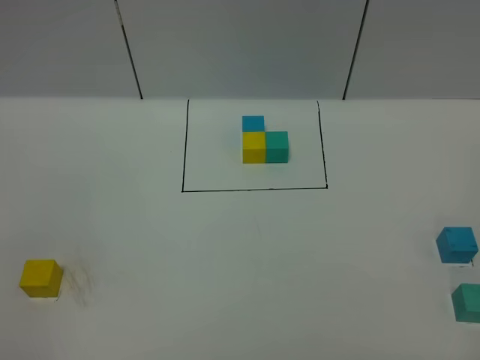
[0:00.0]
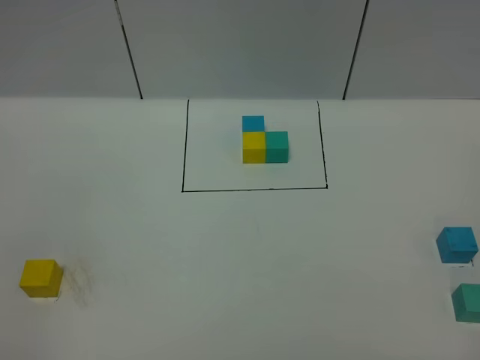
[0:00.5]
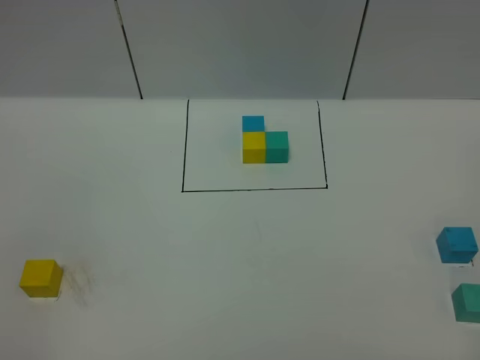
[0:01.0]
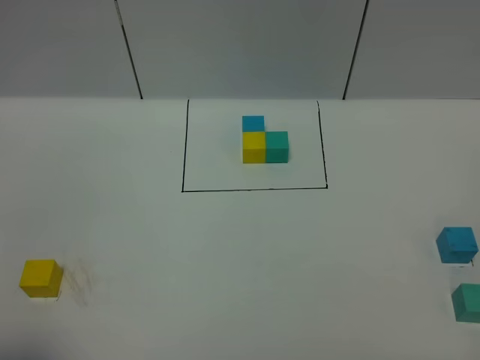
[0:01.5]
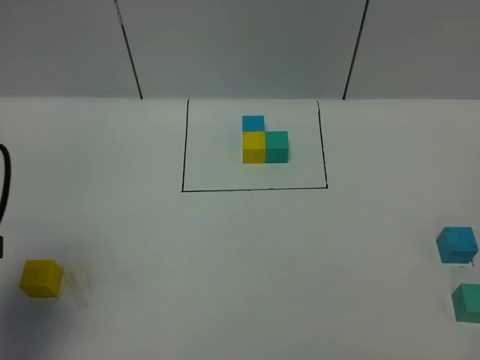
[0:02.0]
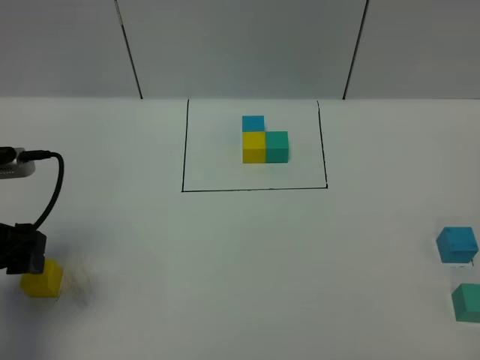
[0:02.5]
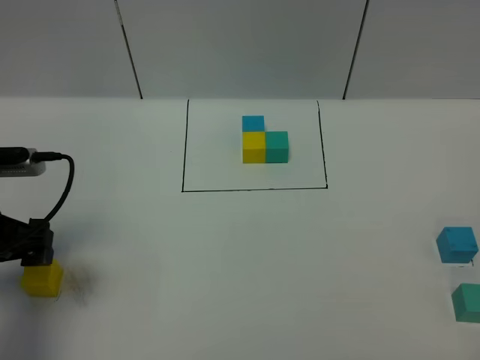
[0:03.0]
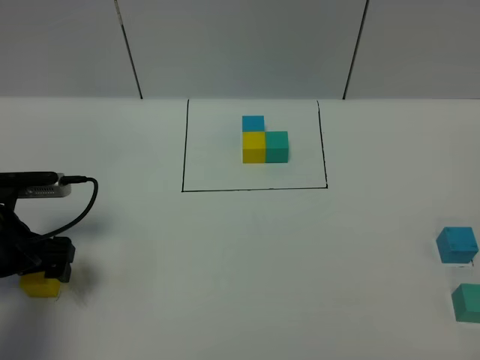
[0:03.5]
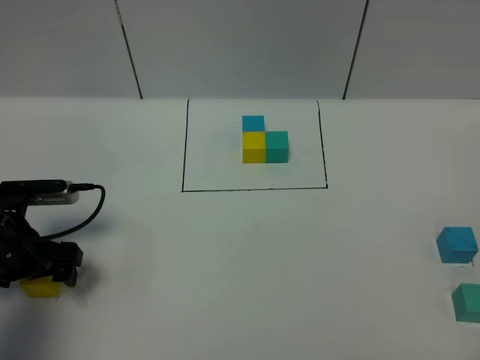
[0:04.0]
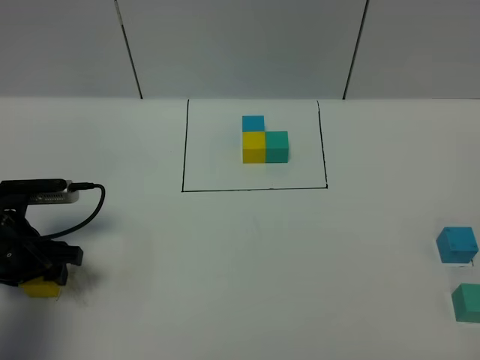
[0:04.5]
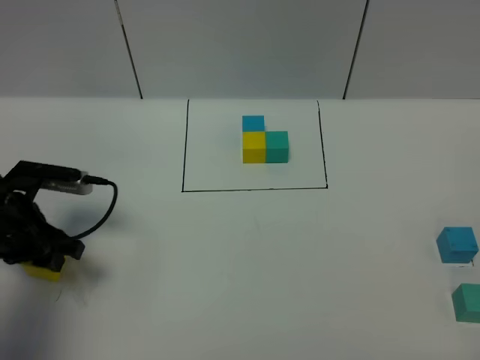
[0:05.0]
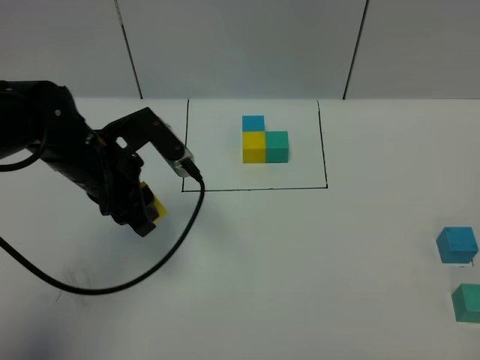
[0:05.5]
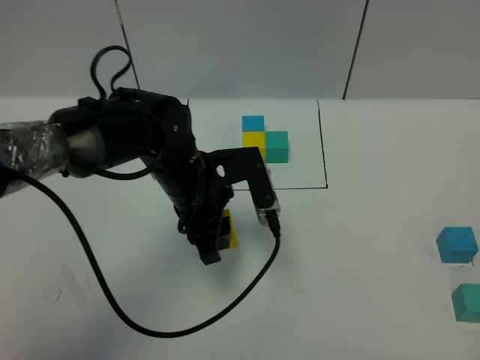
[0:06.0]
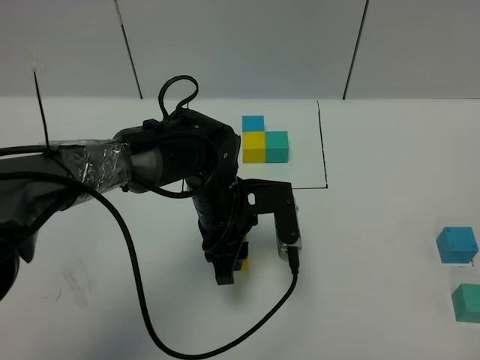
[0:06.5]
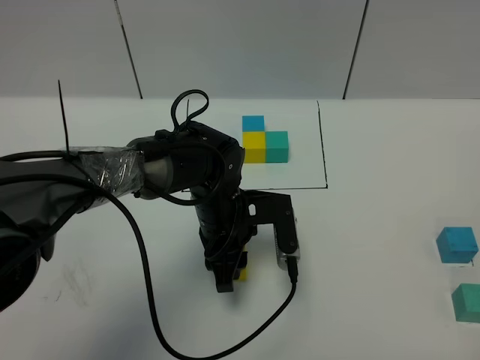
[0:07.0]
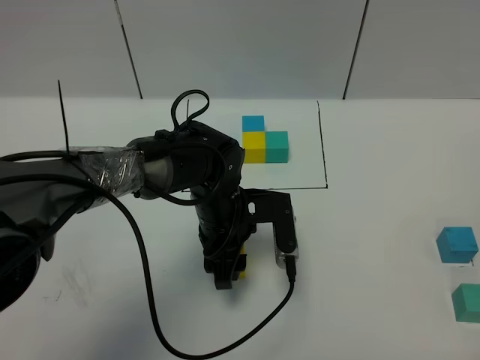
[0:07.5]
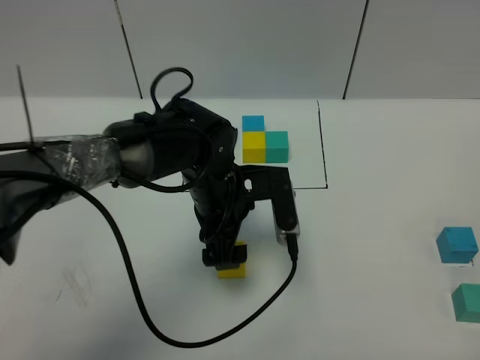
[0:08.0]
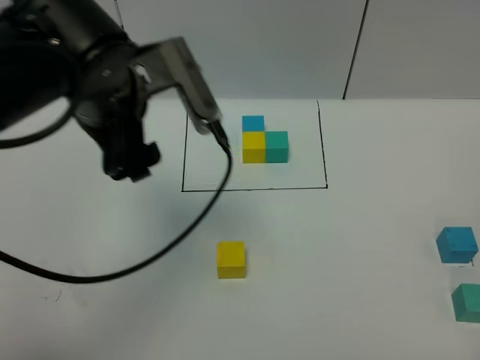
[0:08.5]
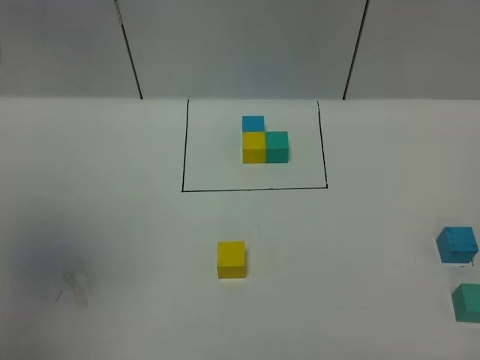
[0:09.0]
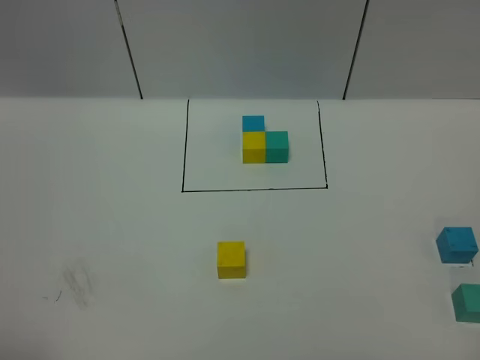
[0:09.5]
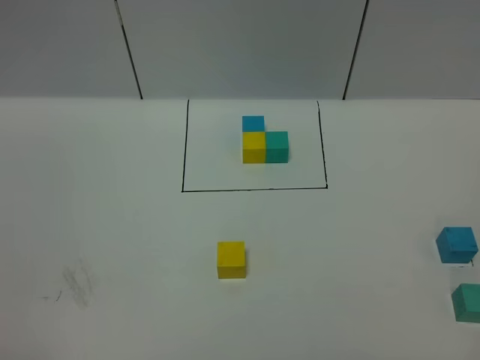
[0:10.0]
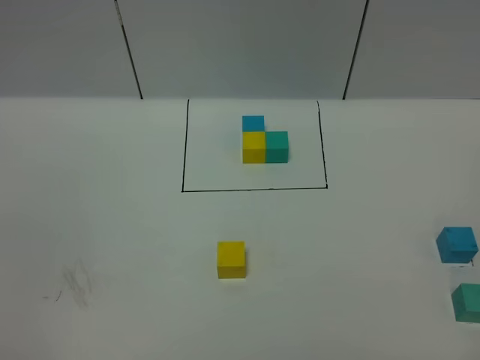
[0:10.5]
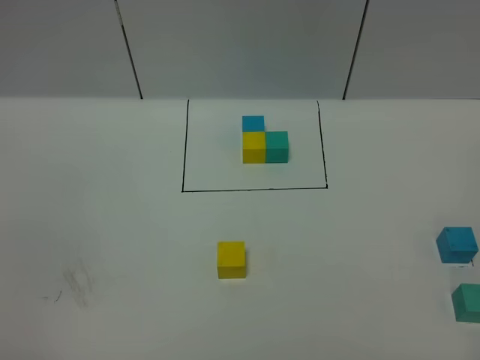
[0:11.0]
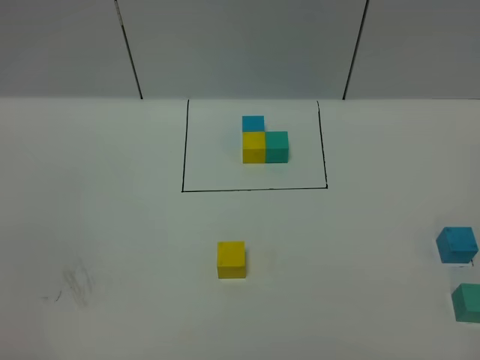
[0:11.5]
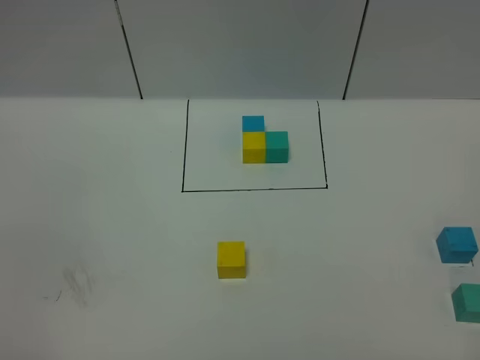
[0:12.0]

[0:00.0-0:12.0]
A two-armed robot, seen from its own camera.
Task of the whole recording: According to the building block template in front, assemble the scattered blocks together.
Step, 0:02.0 to 0:08.0: Put the yellow cube in the center of the table.
0:00.0 to 0:02.0: The left gripper shifts about 20 cm forward.
0:02.0 to 0:04.0: The left gripper travels downward and forward by approximately 20 cm, and opens.
0:04.0 to 0:06.0: The left gripper is displaced to the right by roughly 25 cm, and closes up.
0:06.0 to 0:08.0: The left gripper opens.
0:08.0 to 0:10.0: The left gripper shifts approximately 60 cm backward, to the left and upward.

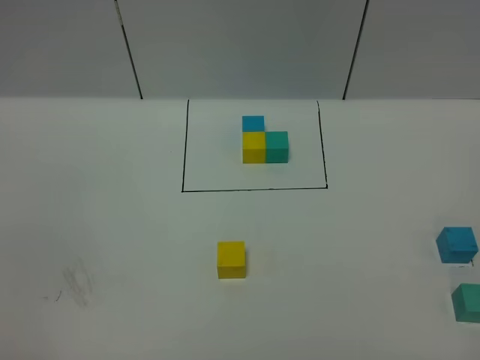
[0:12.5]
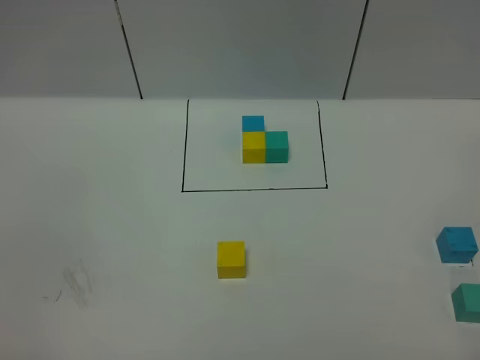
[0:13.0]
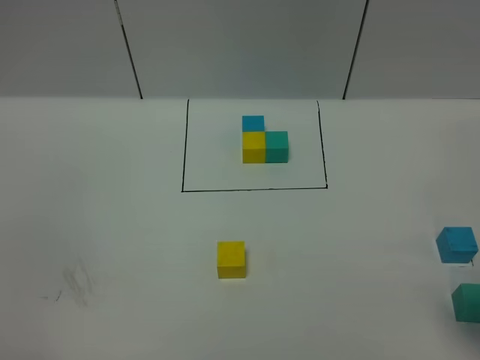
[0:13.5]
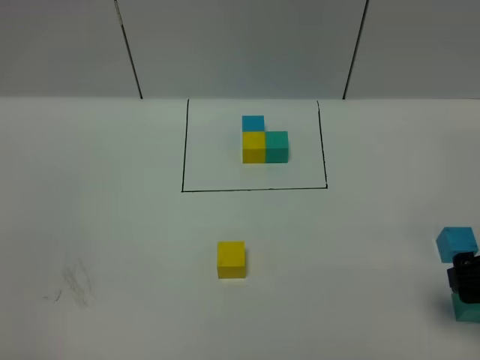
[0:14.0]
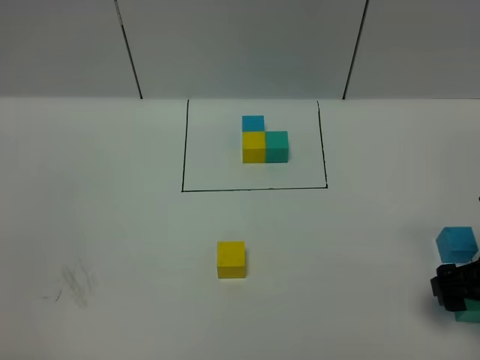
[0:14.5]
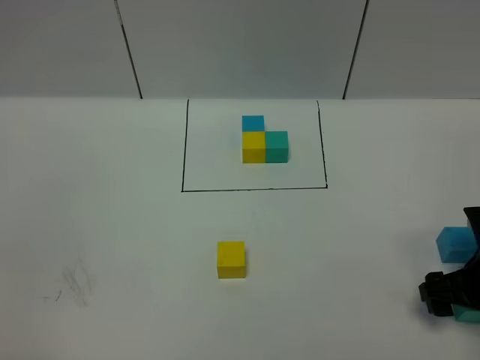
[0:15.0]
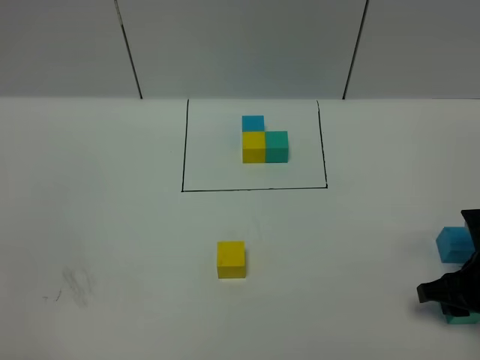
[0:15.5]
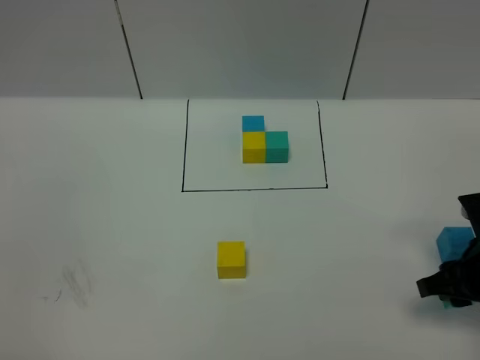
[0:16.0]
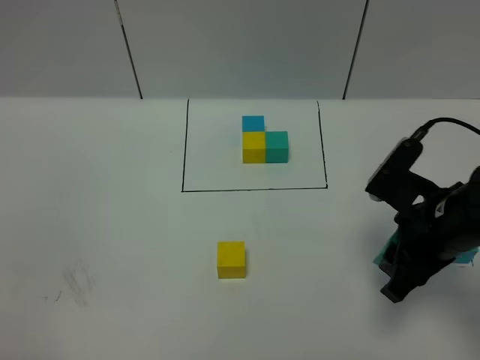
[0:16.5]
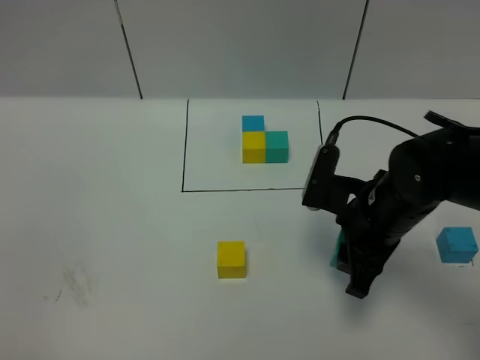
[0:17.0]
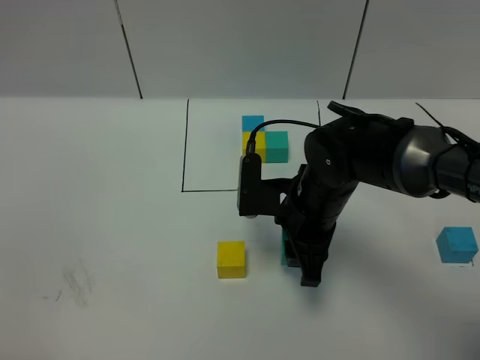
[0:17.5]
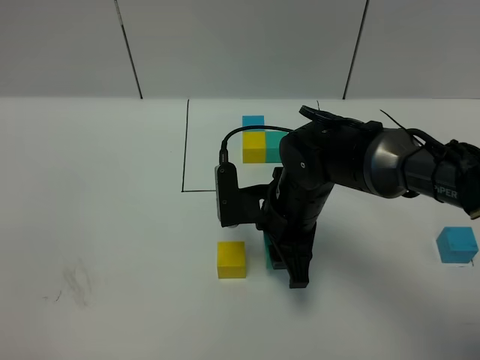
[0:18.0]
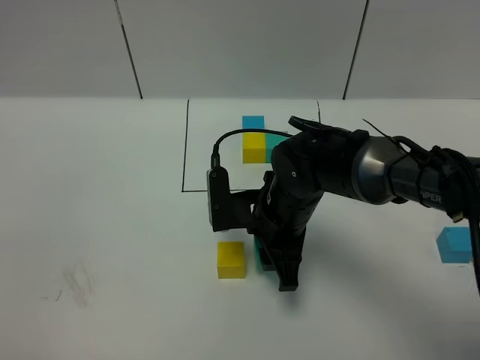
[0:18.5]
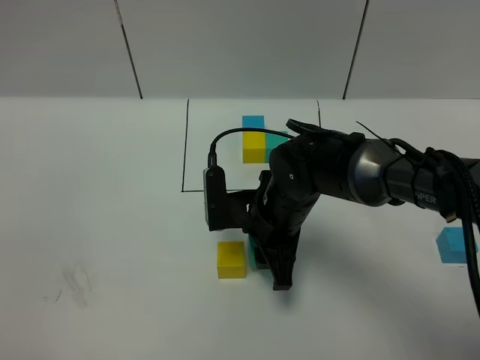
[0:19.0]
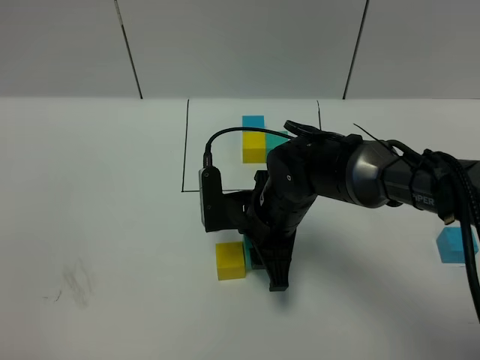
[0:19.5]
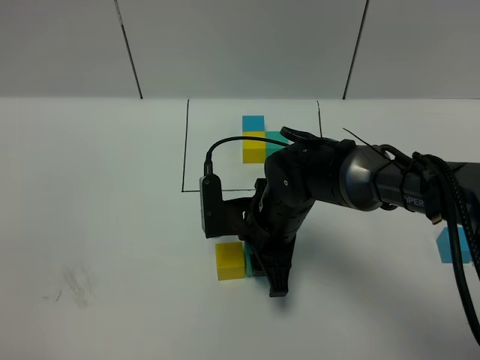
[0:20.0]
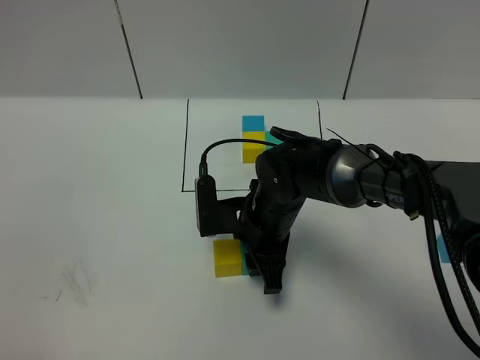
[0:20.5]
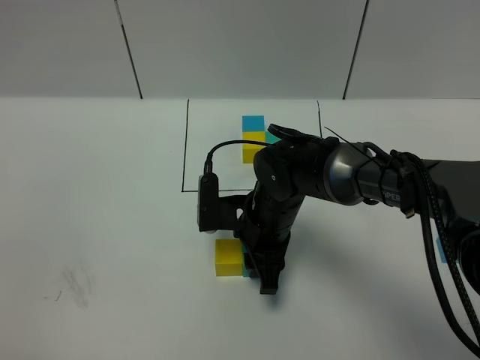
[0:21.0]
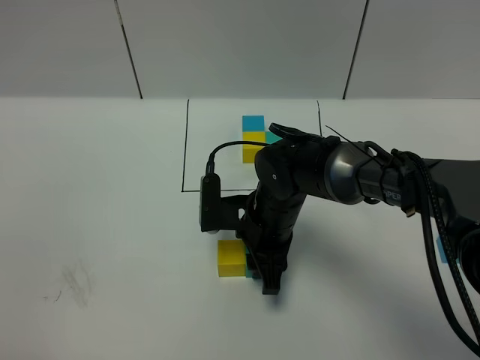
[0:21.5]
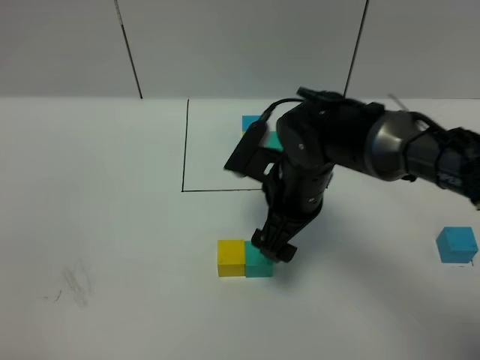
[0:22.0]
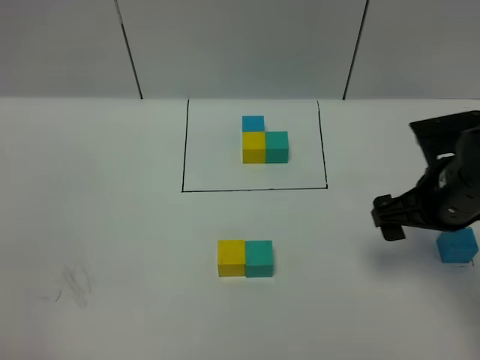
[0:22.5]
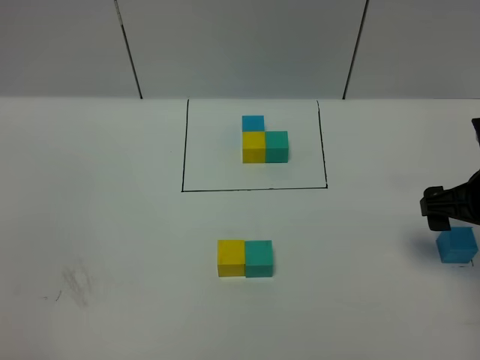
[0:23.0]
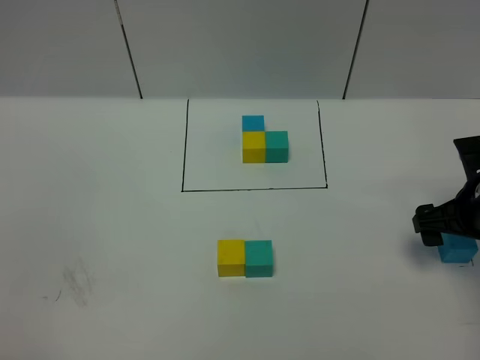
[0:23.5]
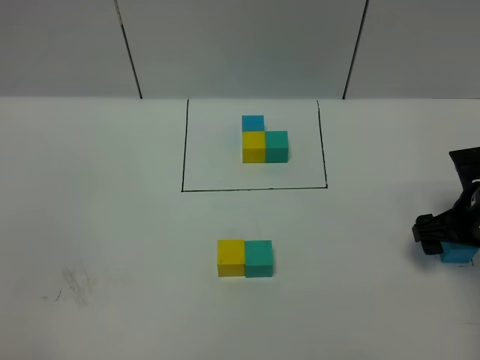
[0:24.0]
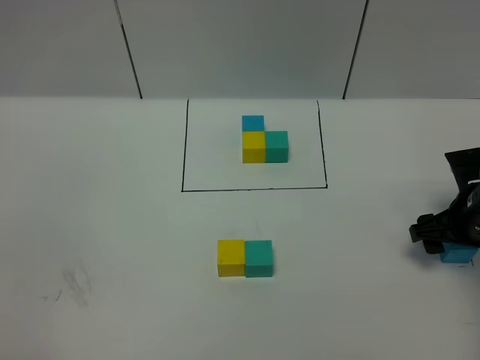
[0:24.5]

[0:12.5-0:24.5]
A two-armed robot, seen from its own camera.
Task of the whole recording: According to the building block template in front, assemble the scattered blocks together.
Step, 0:12.5 to 0:21.5: Put the green cube on the right of the yellow cube.
0:12.5 to 0:14.5: The right gripper shifts some 25 cm forward and downward.
0:14.5 to 0:16.5: The right gripper shifts some 10 cm to the left, and closes its fingers.
0:16.5 to 0:18.5: The right gripper travels to the left by roughly 15 cm.
0:18.5 to 0:20.5: There are only small adjustments of the grippers.
0:20.5 to 0:22.5: The right gripper goes some 20 cm to the right and upward, and opens its fingers.
0:22.5 to 0:24.5: The right gripper goes approximately 10 cm downward and to the right.

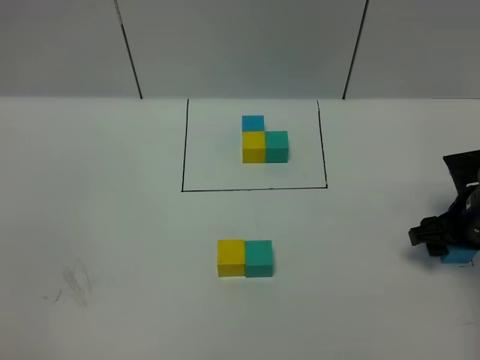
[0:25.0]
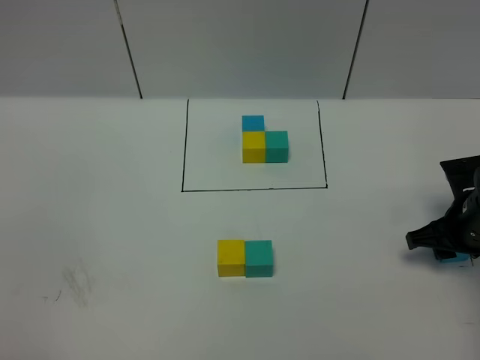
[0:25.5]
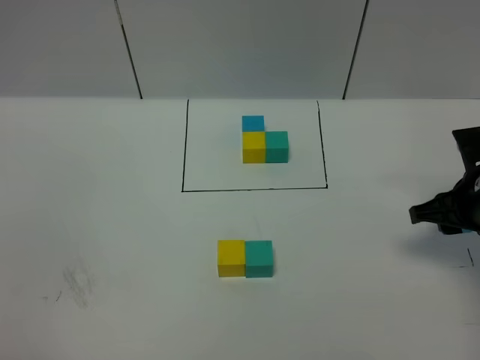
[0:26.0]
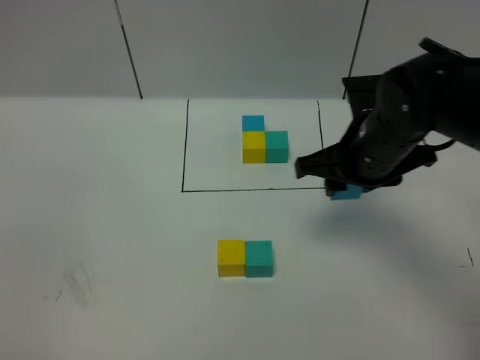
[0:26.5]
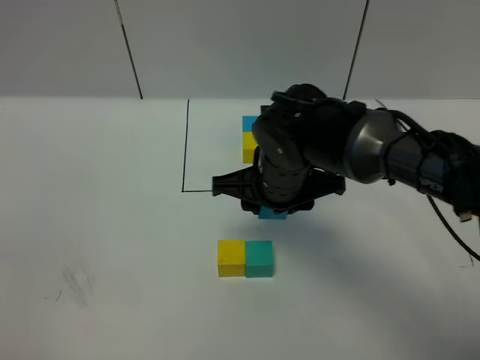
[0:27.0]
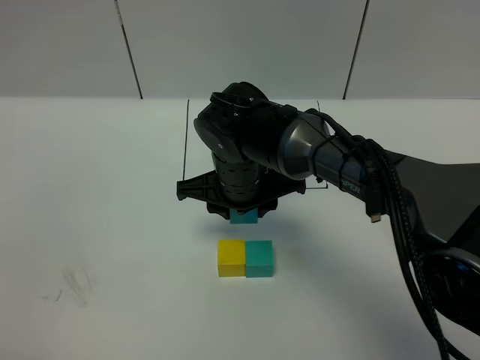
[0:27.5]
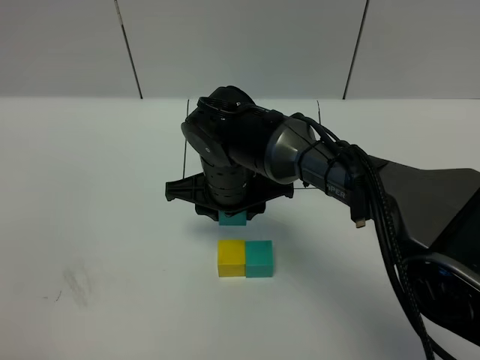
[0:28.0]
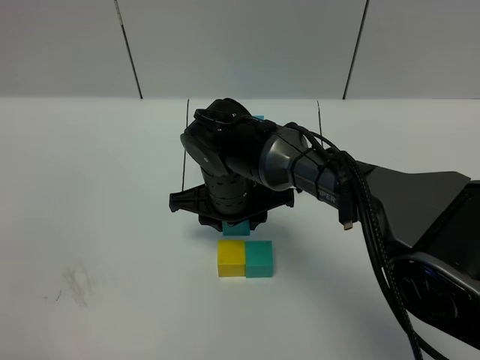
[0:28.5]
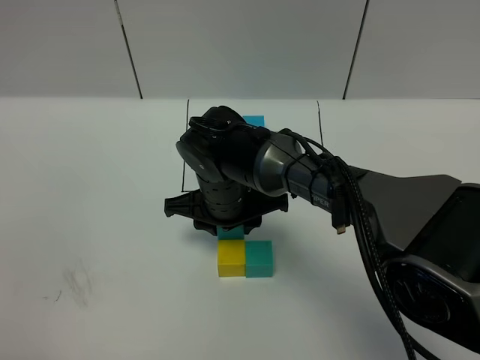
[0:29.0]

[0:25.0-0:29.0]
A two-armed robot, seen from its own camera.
Task of the whole recording: According to the building block template in front, assemble the scattered blocks together.
0:25.0 to 0:27.0: The right gripper heads to the left, covering approximately 25 cm, and closes up.
0:27.0 to 0:29.0: The right gripper shifts roughly 5 cm to the left.
